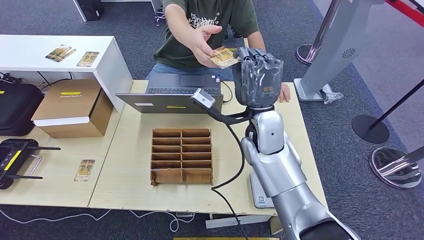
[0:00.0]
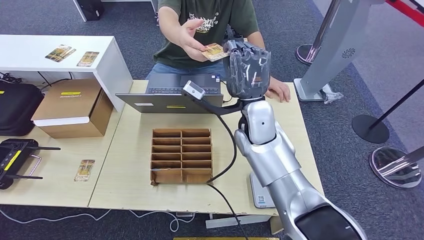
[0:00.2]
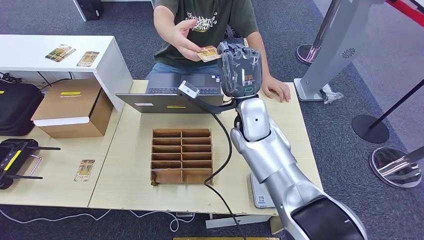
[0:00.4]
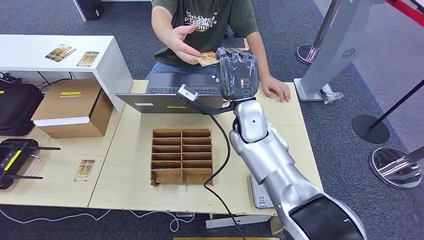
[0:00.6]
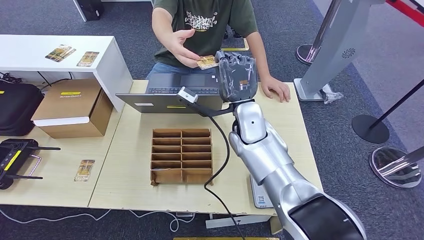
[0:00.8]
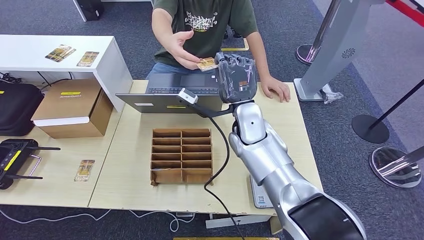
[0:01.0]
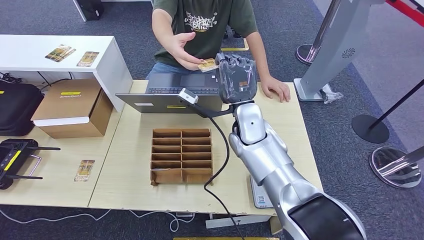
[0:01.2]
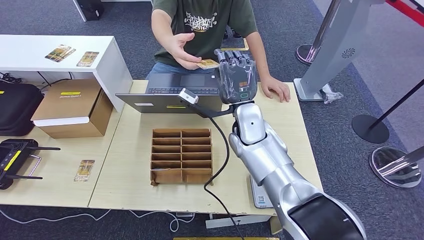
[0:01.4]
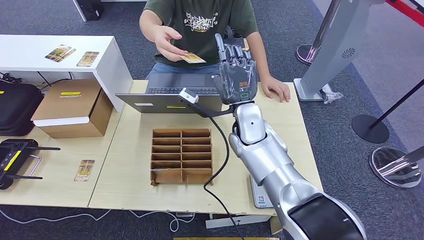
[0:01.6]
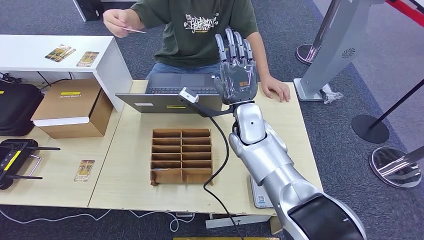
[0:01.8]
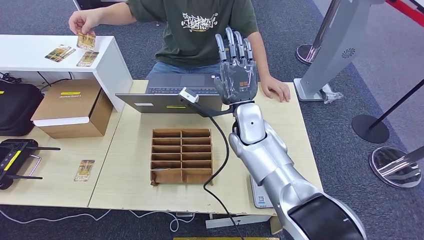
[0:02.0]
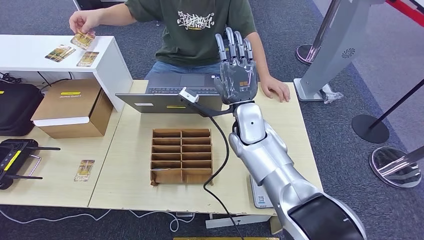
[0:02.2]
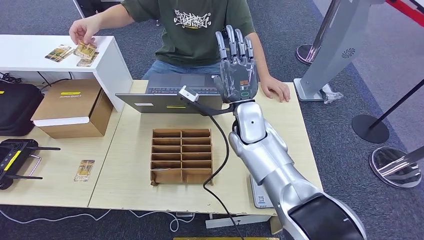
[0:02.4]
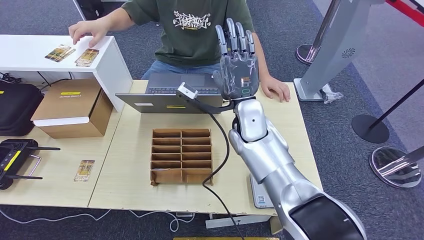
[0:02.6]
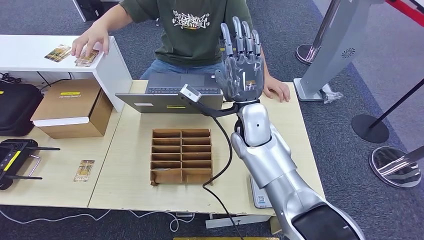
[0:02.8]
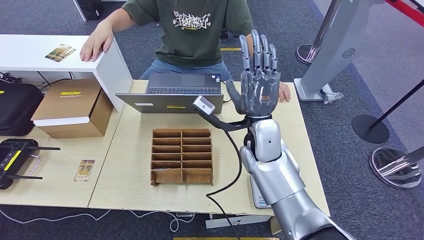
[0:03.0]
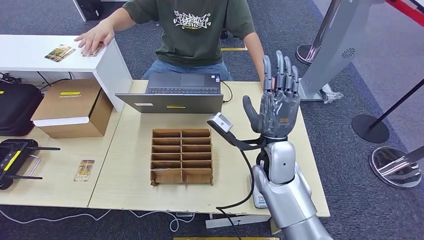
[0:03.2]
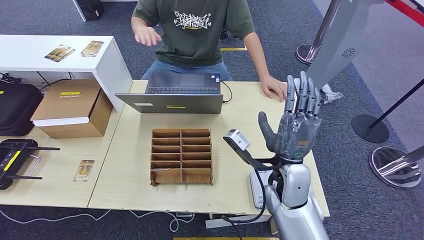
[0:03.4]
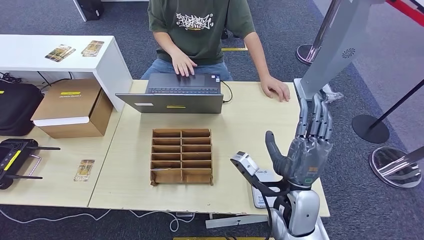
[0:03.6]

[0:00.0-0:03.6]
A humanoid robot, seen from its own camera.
Step, 0:00.0 to 0:03.6: Hand the room key to the person.
0:00.0 to 0:01.8: There are only small adjustments of the hands.
0:01.8 to 0:03.6: The right hand travels backward, to the right and downward by approximately 20 cm.
